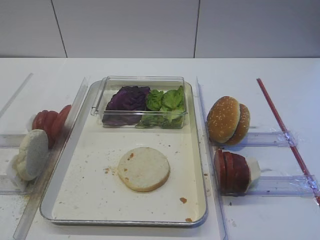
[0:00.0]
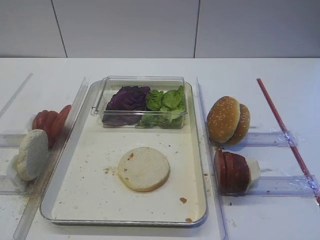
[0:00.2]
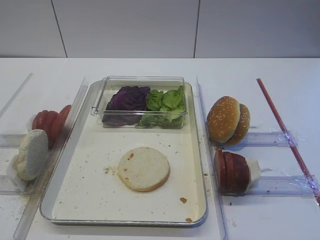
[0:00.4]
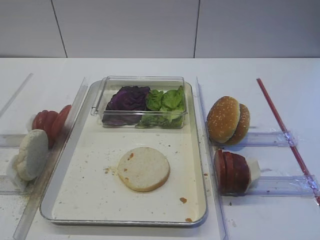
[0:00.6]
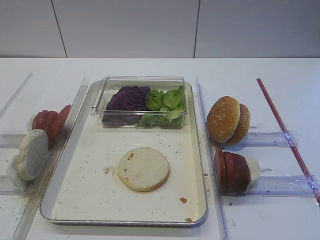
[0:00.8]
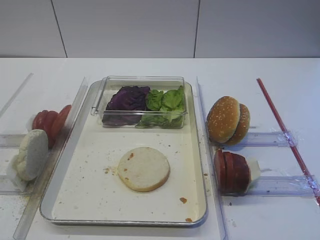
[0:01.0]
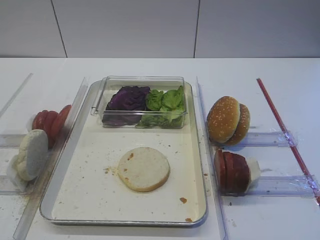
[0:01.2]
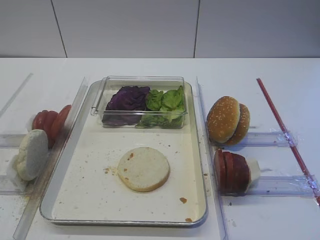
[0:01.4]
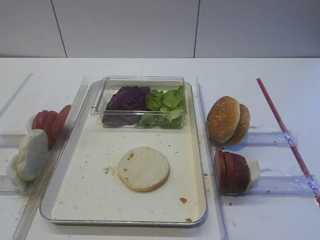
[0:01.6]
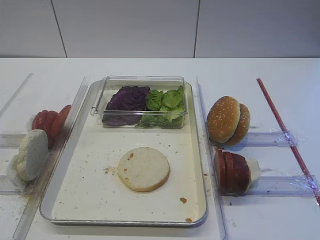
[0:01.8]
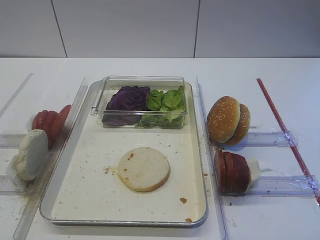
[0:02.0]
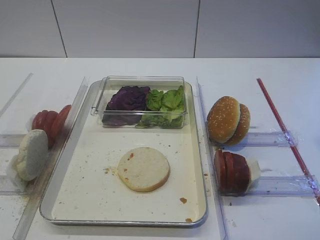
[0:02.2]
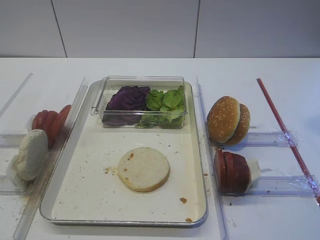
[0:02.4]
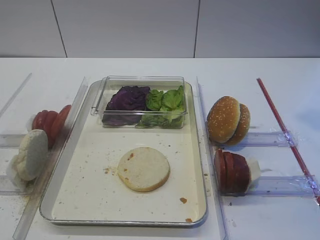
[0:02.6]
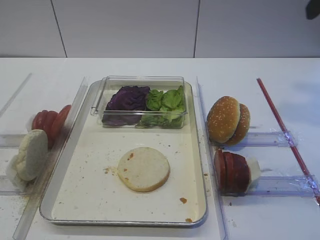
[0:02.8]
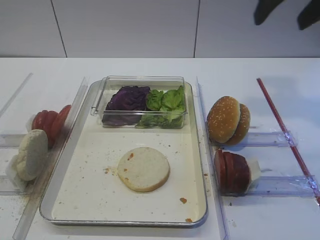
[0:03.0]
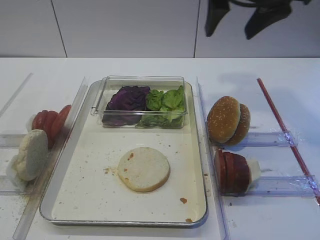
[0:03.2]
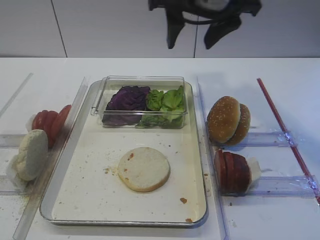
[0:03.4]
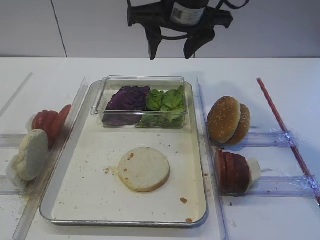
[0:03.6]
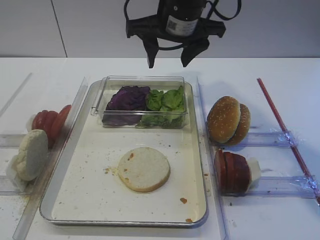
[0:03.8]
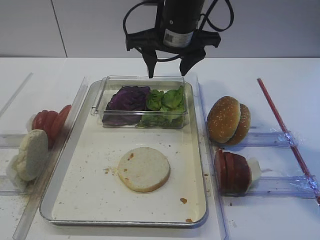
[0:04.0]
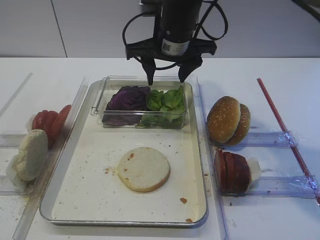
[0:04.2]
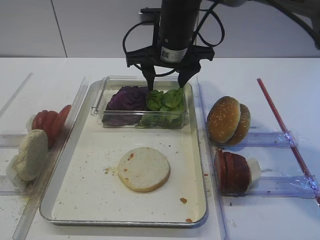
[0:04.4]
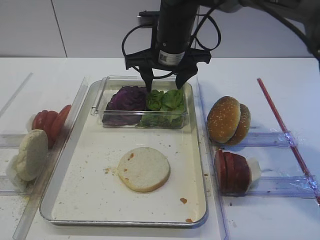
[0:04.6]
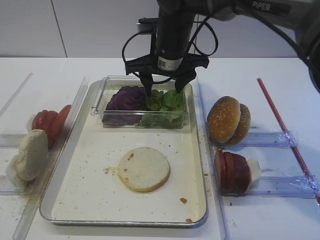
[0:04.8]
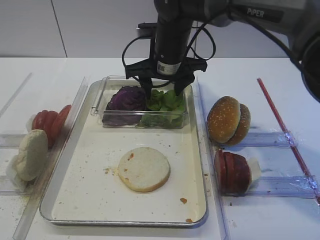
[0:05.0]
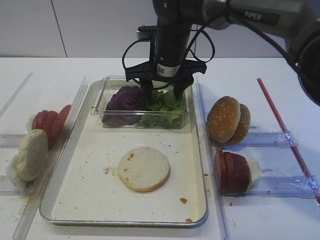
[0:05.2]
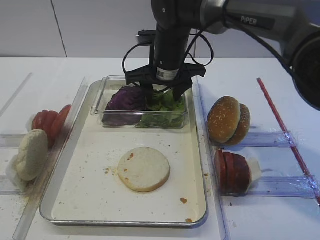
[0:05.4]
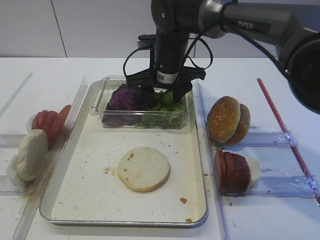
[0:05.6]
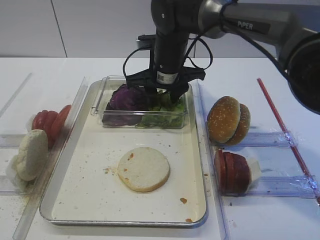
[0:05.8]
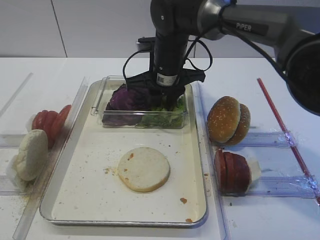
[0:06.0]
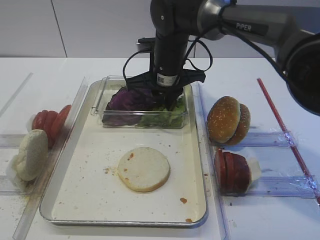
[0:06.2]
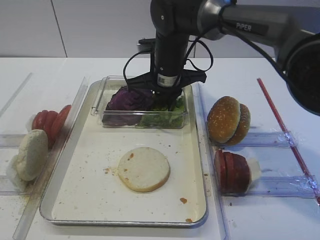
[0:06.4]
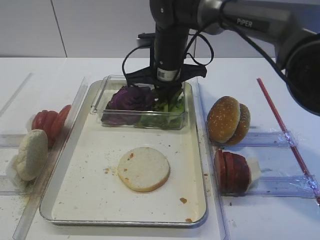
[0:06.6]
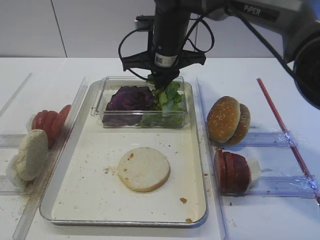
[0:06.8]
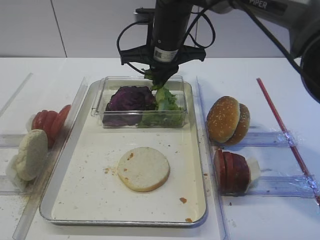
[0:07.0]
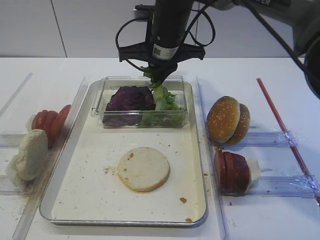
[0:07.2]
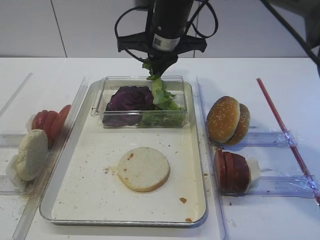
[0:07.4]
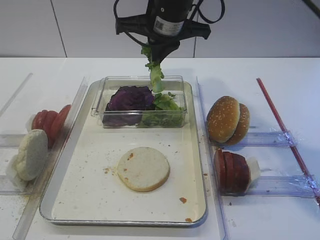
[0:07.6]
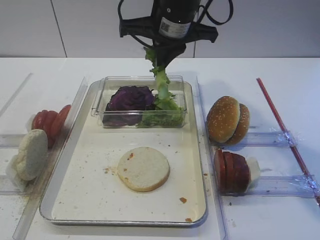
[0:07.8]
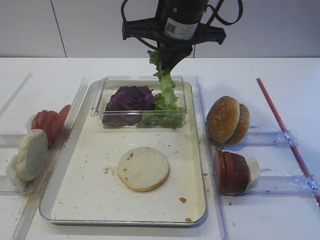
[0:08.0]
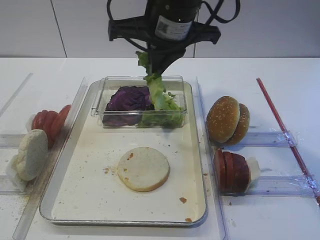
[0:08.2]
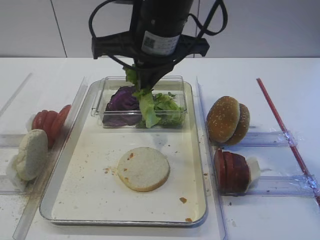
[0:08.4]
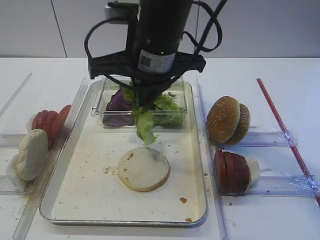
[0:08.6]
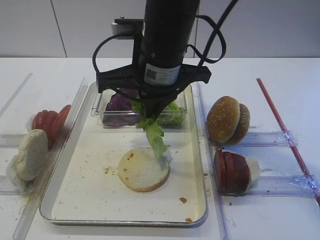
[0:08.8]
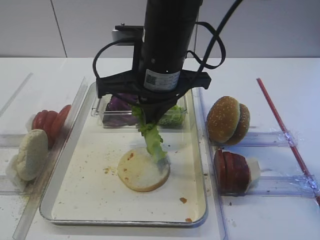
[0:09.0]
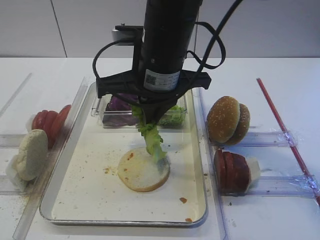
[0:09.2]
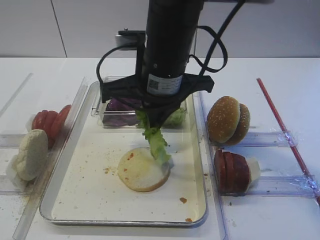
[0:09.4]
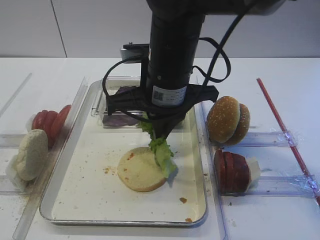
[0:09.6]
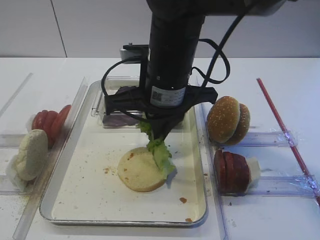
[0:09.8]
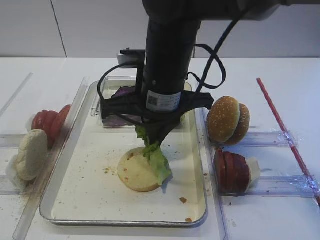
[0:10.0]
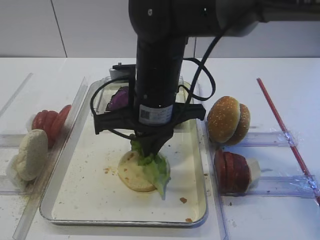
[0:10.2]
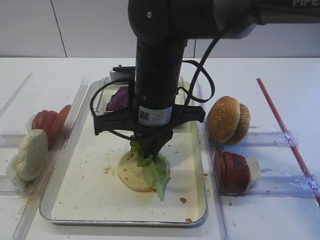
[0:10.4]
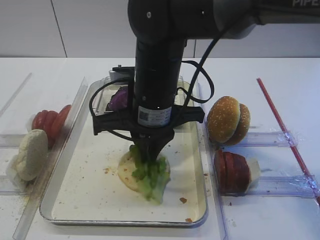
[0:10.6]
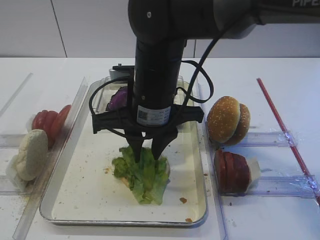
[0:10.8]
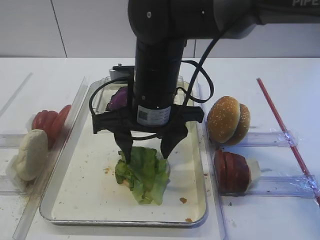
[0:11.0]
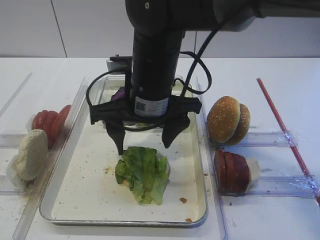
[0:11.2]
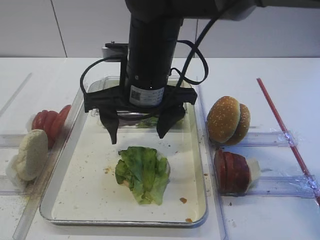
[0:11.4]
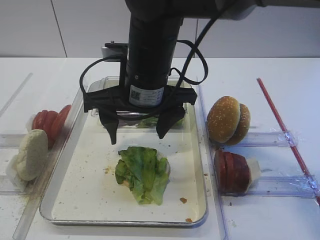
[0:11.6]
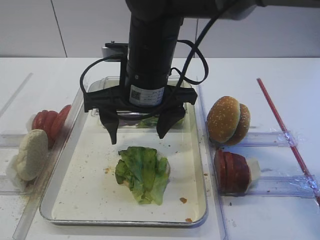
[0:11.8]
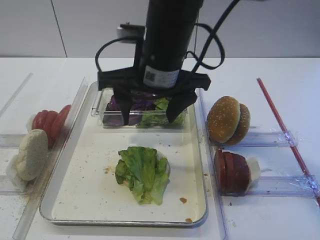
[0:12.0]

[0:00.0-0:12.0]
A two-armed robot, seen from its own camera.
Step, 0:00.0 to 0:07.4: Pick up the lettuce leaf with the right gripper.
Step, 0:07.6 to 0:11.4: Place the lettuce leaf on the bread slice with the right gripper.
0:01.6 to 0:03.0: The right gripper travels forward by approximately 20 cm.
0:03.0 to 0:04.4: The right gripper moves to the left, downward and forward, some 25 cm.
0:04.4 to 0:06.0: The right gripper travels downward by about 5 cm, and closes its fingers.
0:06.0 to 0:07.6: The right gripper moves upward, some 10 cm, and closes.
0:07.6 to 0:09.0: The right gripper shifts approximately 10 cm backward.
0:09.0 to 0:10.4: The grippers make only small movements.
0:10.4 to 0:12.0: The right gripper opens its fingers.

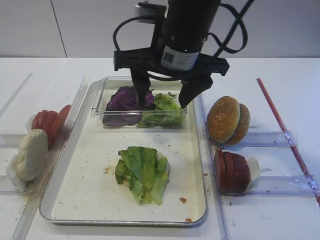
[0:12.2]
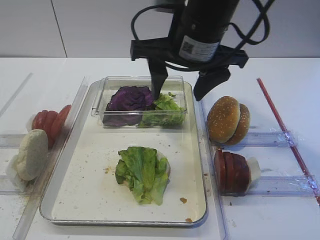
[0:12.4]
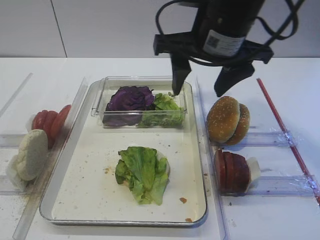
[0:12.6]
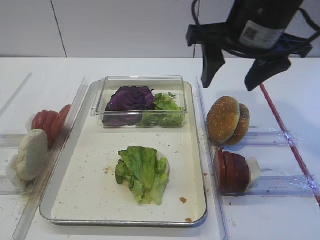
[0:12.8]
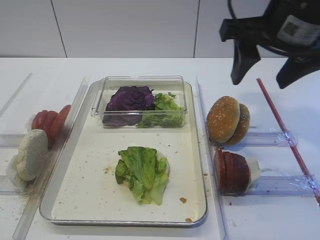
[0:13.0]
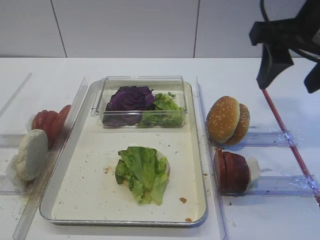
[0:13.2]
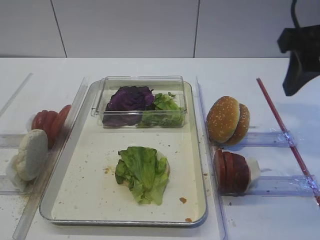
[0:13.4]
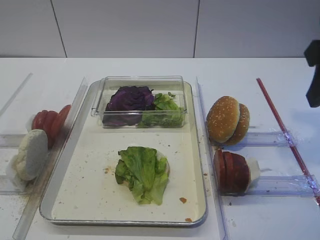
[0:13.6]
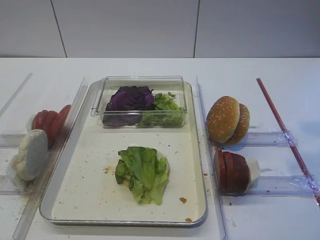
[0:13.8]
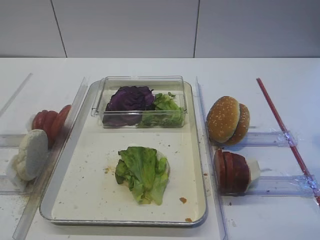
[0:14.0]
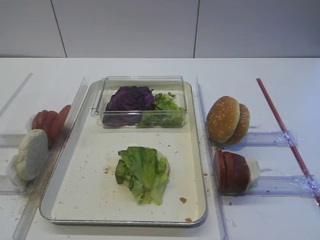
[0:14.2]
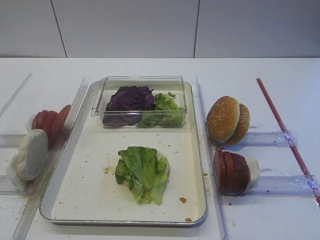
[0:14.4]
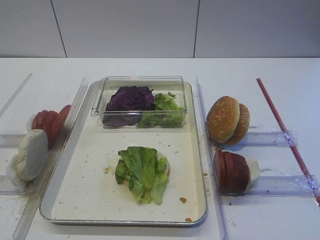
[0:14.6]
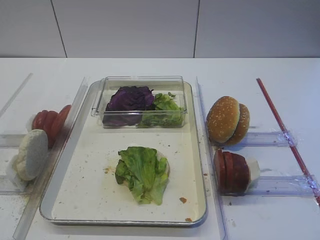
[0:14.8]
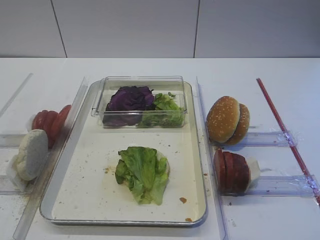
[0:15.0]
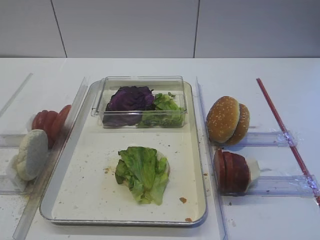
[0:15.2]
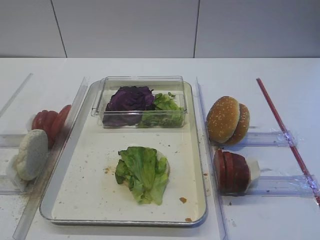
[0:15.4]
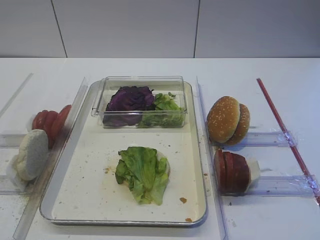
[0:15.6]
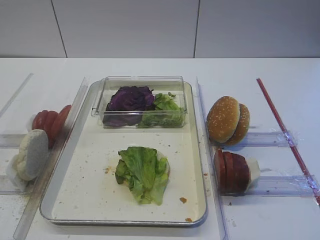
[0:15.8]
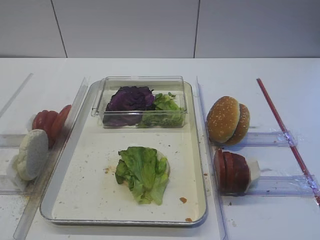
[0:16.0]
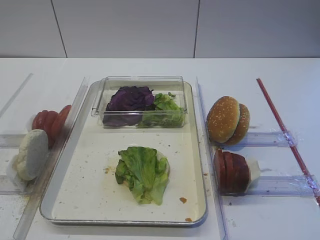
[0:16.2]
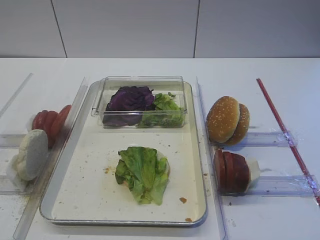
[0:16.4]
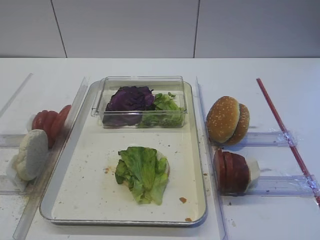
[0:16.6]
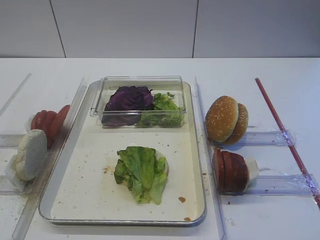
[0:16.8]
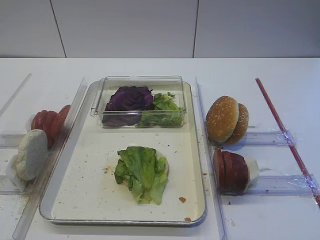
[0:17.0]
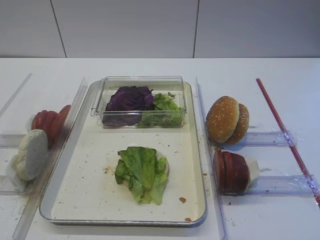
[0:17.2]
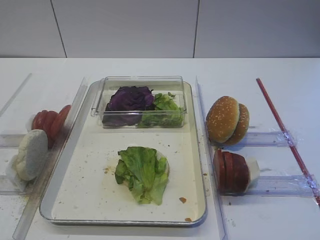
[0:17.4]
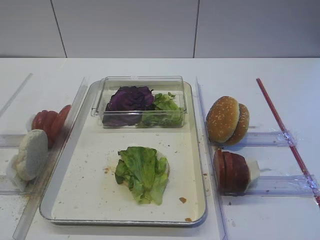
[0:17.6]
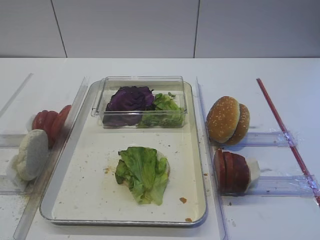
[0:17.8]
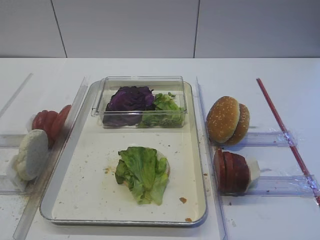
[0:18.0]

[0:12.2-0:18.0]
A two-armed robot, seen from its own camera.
0:12.2 to 0:13.6: The right gripper shifts approximately 20 cm to the right and backward.
0:13.6 to 0:15.0: The right gripper goes about 20 cm backward.

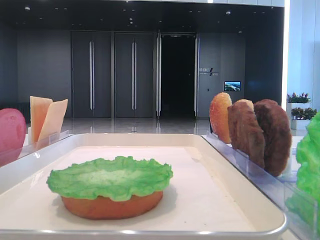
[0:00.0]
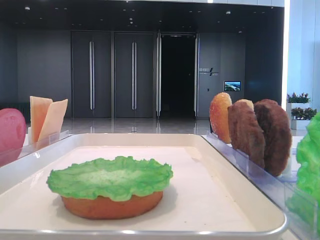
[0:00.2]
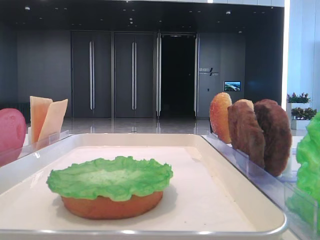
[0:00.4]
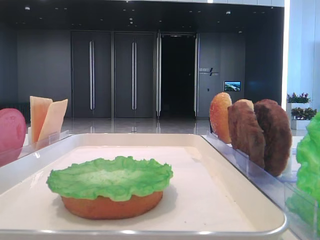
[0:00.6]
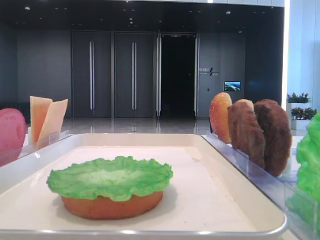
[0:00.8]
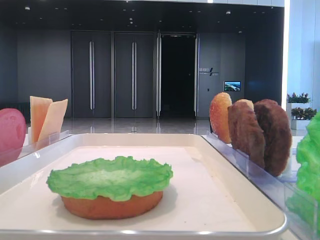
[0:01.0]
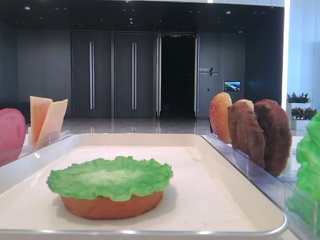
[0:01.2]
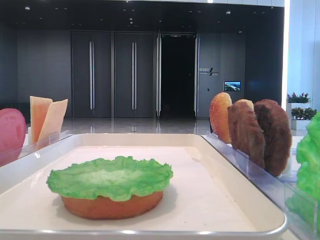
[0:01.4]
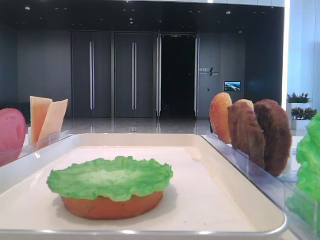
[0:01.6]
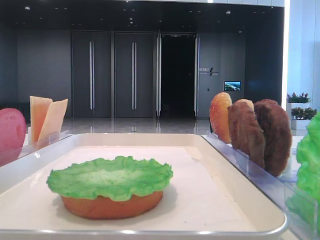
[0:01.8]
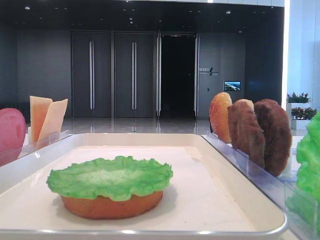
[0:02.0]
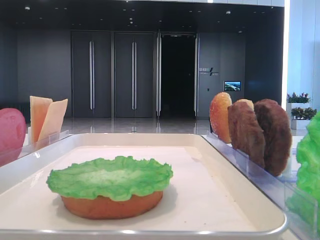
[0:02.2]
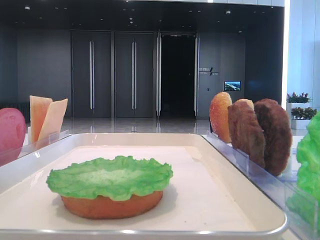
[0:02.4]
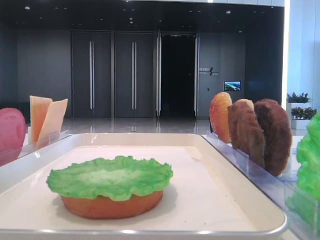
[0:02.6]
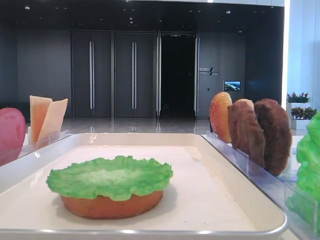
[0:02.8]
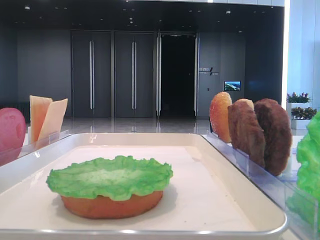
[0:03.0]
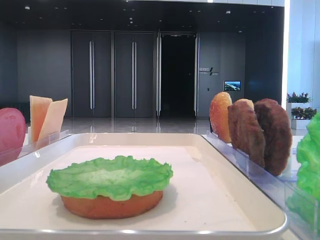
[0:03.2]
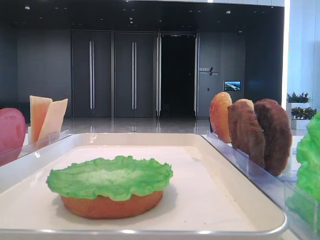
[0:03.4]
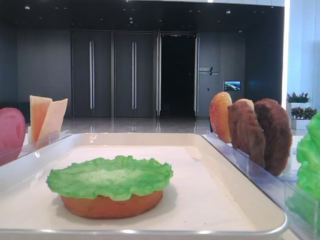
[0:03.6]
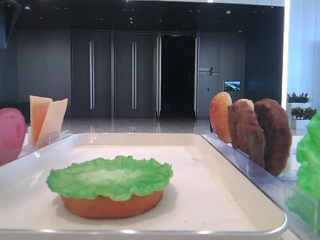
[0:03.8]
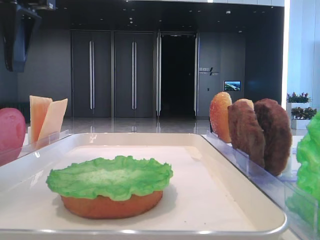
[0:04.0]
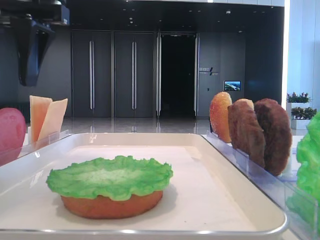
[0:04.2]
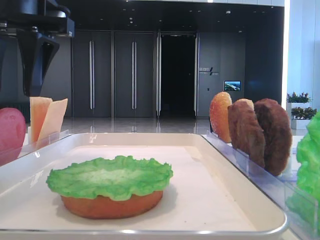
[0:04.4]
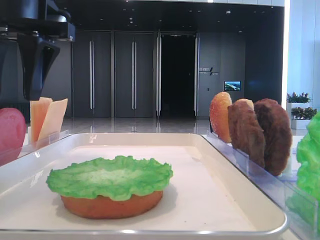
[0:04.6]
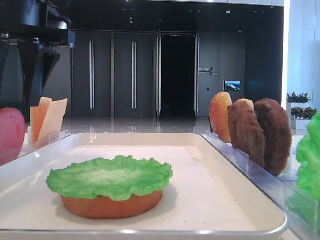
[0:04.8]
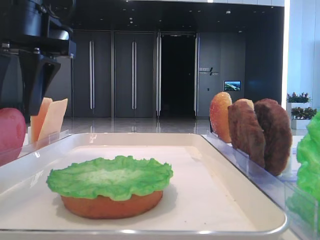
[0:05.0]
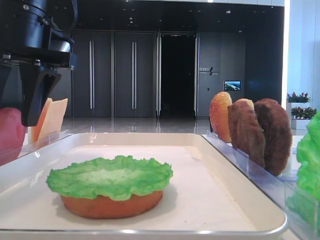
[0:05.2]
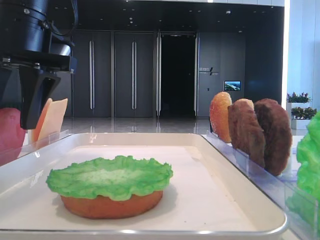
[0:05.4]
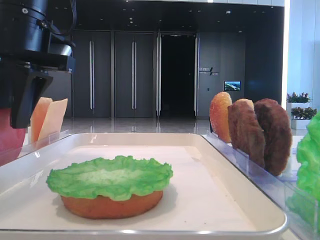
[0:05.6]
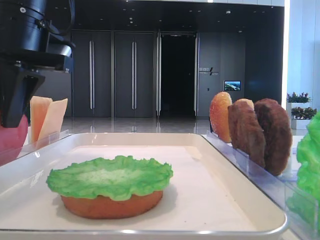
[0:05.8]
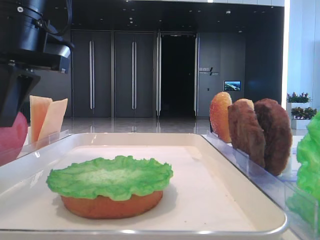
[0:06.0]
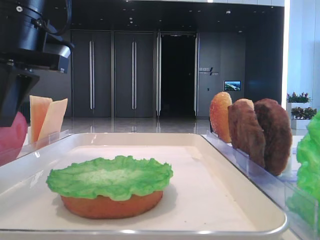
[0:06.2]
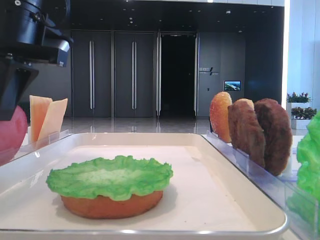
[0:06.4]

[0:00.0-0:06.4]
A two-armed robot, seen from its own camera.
Step, 0:00.0 to 0:05.8: Pick up the tomato slice with the left hand.
0:03.2 to 0:04.8: The left gripper heads to the right and downward, covering roughly 15 cm.
0:04.8 to 0:06.4: The left gripper closes.
